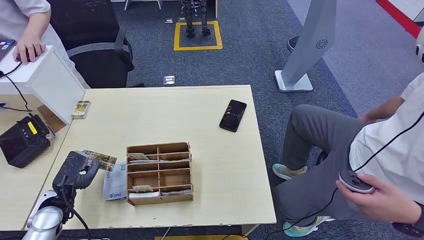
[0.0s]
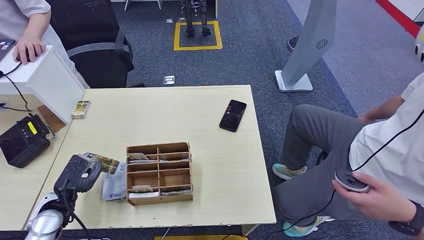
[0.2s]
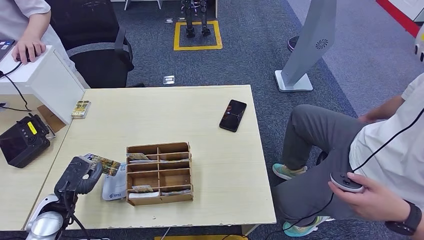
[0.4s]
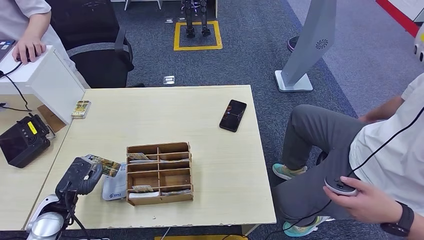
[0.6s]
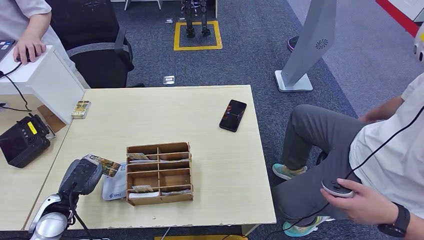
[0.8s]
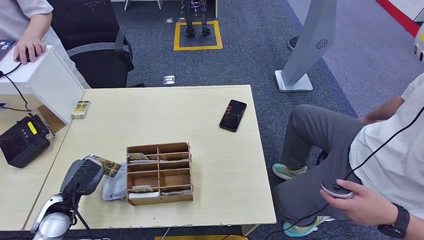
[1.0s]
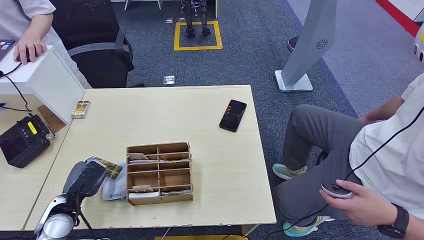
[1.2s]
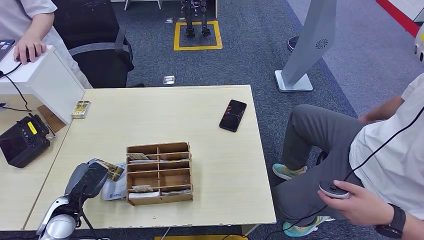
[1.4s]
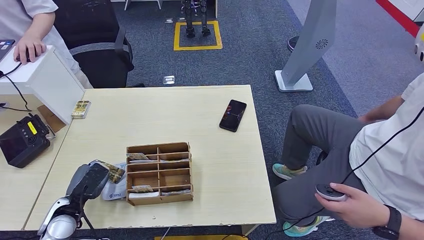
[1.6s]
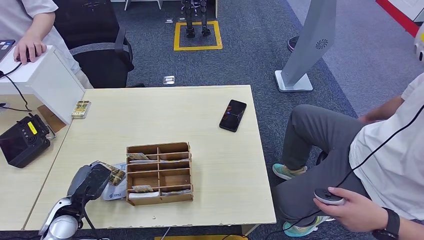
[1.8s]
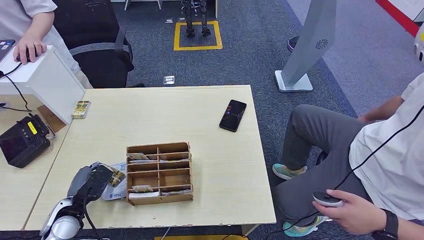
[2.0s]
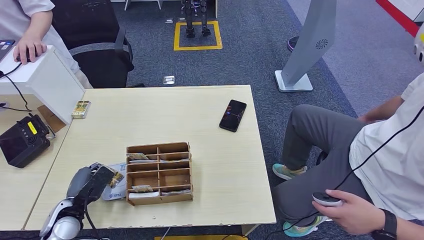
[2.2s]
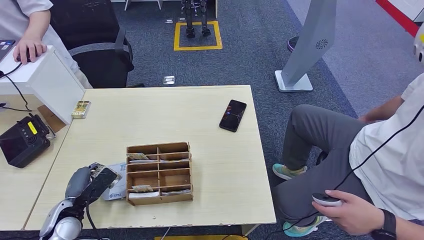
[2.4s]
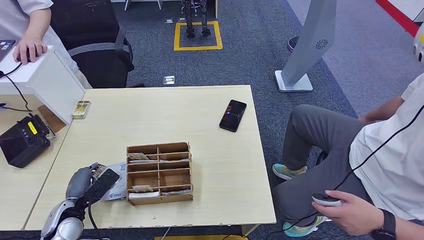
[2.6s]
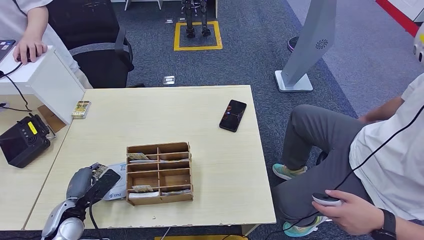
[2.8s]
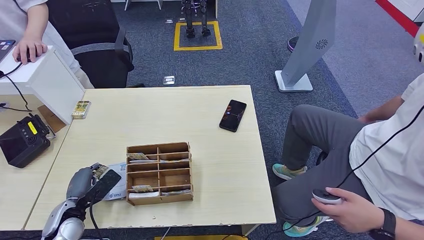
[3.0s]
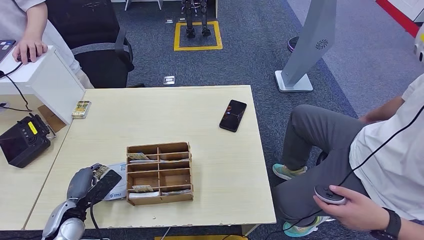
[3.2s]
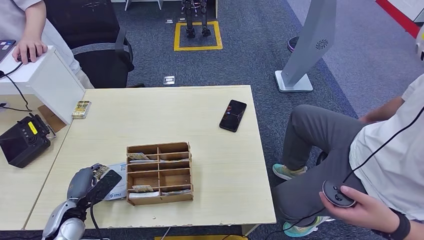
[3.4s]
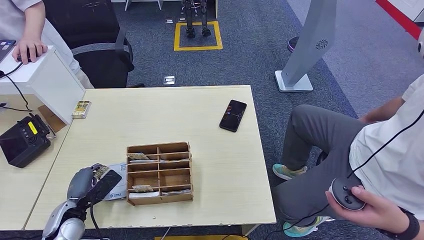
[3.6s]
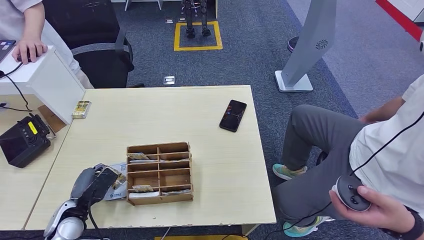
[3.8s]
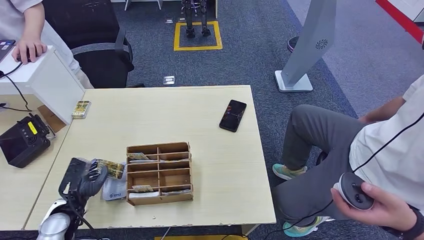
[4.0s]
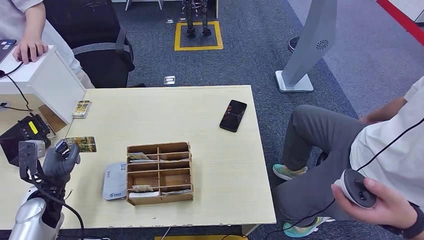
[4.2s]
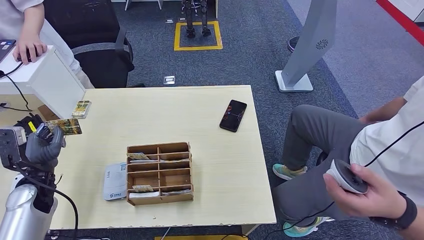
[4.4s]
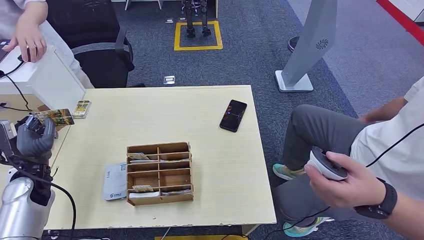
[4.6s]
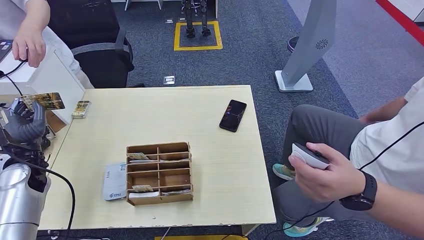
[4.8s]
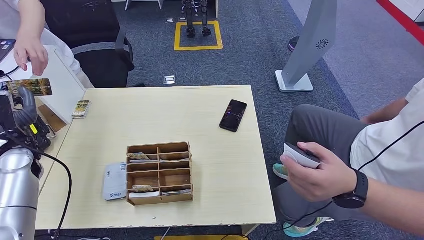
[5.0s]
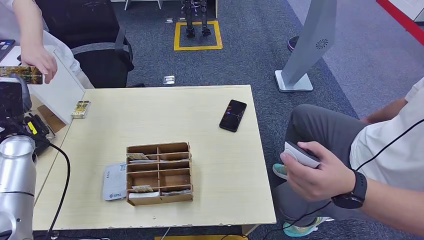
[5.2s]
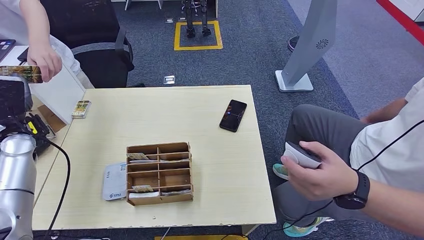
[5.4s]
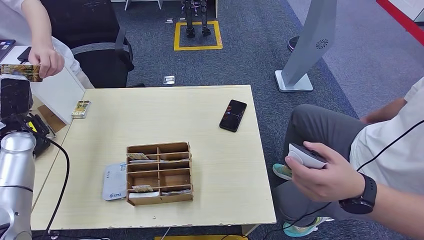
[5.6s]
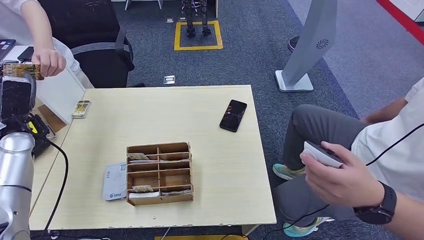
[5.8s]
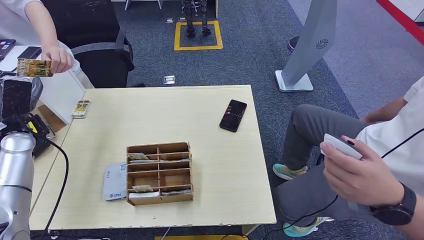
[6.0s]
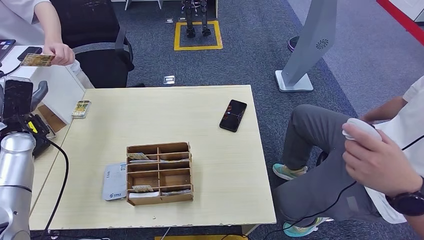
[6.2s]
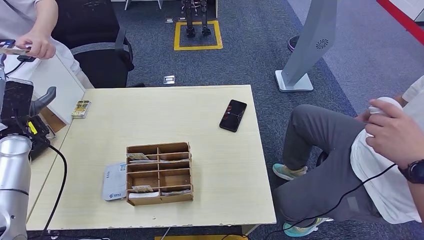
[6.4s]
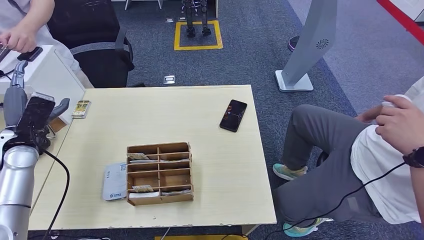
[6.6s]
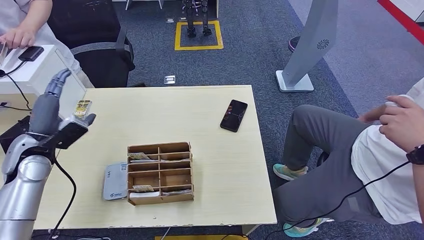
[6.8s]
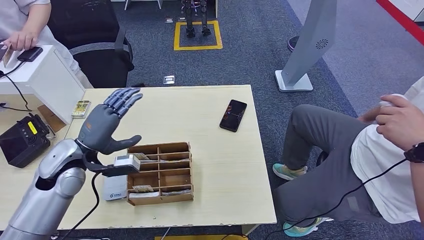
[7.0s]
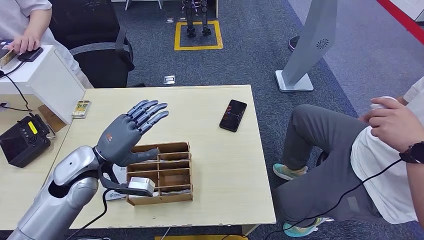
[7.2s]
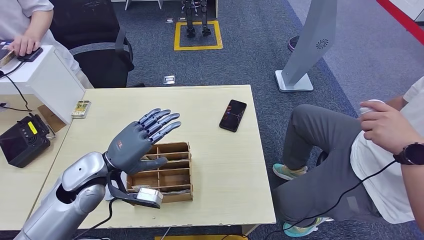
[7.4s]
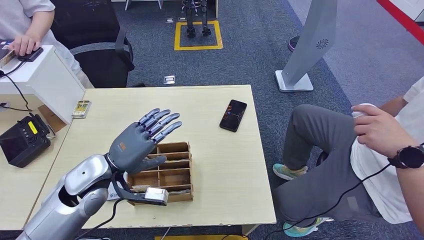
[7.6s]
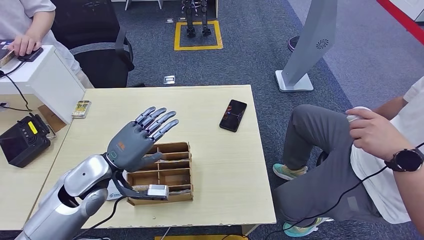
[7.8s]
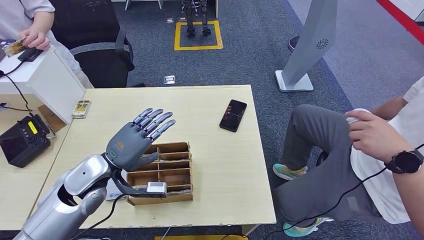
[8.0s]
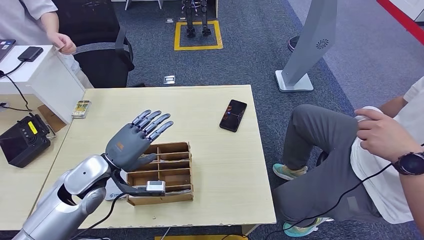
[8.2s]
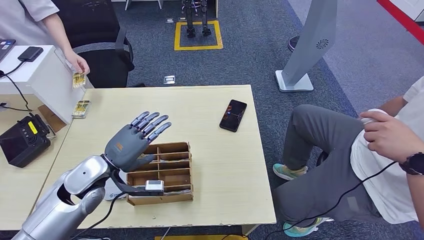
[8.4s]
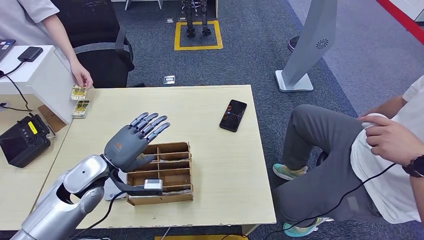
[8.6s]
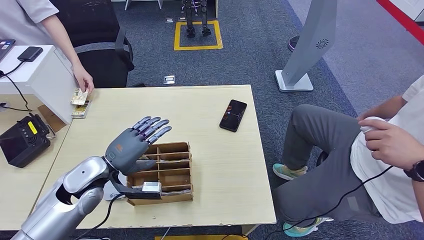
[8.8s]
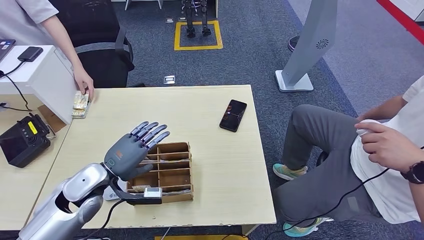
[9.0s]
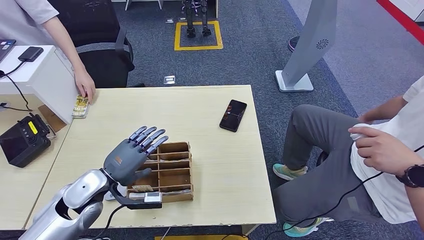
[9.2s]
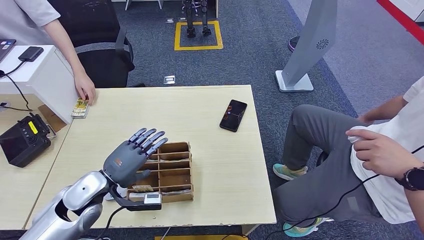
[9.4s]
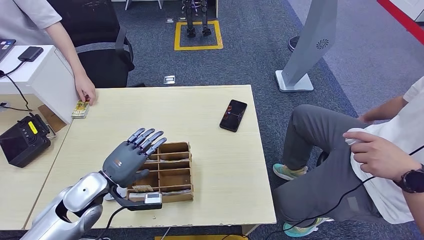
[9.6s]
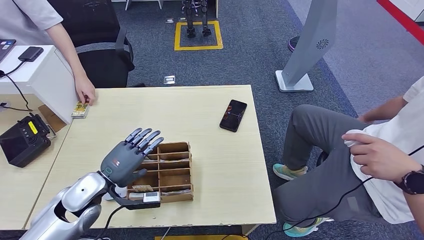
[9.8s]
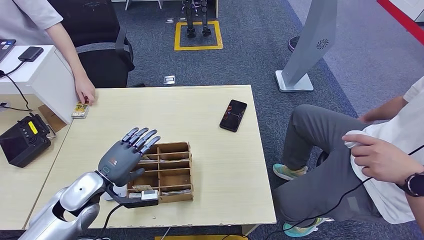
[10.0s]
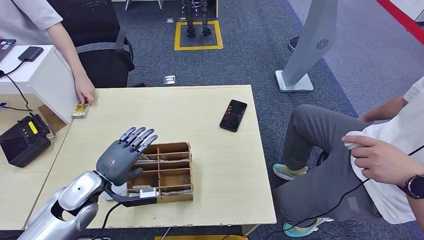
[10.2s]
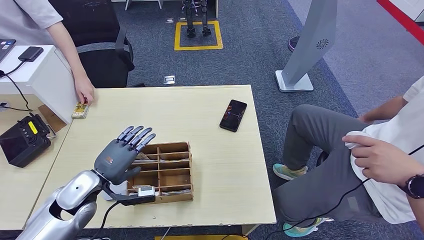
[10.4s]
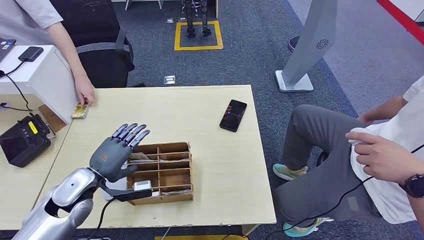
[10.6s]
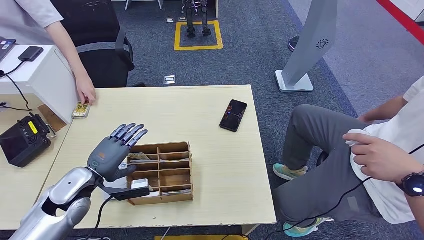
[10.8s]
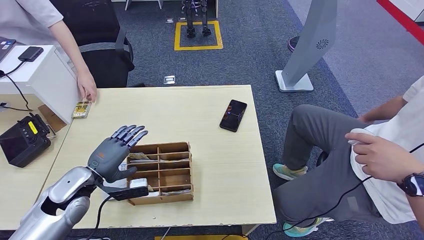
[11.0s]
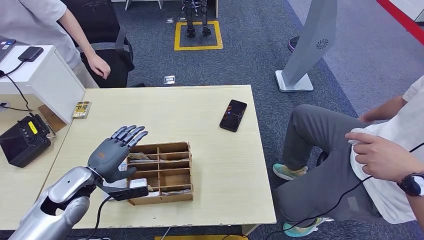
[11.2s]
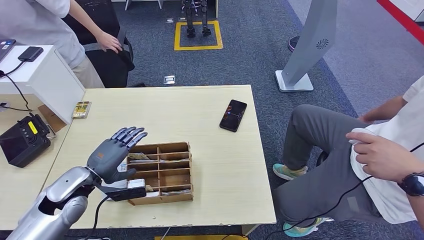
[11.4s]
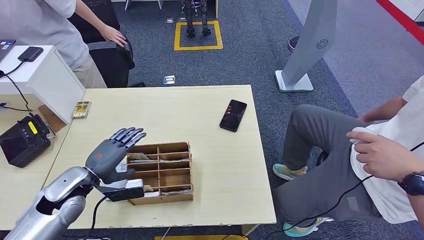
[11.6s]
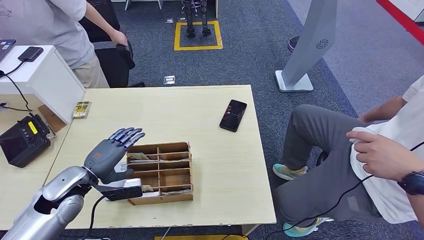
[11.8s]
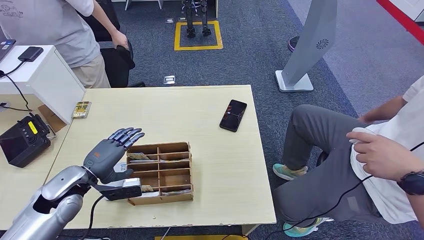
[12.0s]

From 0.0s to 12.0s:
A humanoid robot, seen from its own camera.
Step, from 0.0s to 2.0s: Place the ID card on the card reader.
Step, from 2.6s to 7.2s: Hand the ID card to the person.
From 0.0s to 1.6s: The hands make only small movements.
From 1.6s to 3.0s: There are only small adjustments of the hands.
From 3.0s to 4.4s: The left hand goes some 10 cm upward, forward and to the left.
From 4.4s to 6.0s: The left hand goes about 15 cm upward and forward.
From 7.6s to 9.0s: The left hand shifts by some 5 cm.
From 9.0s to 12.0s: The hands make only small movements.

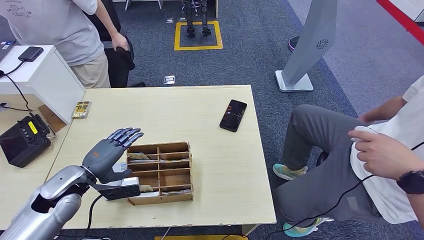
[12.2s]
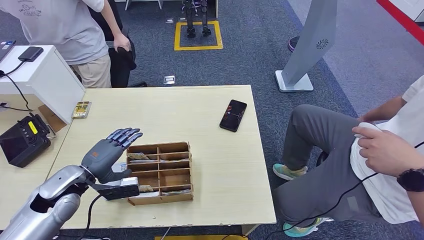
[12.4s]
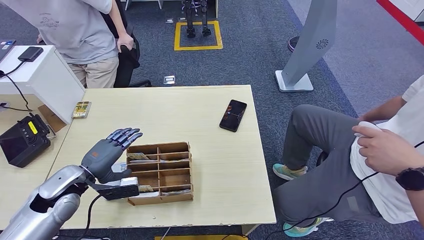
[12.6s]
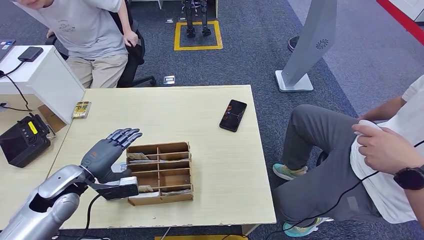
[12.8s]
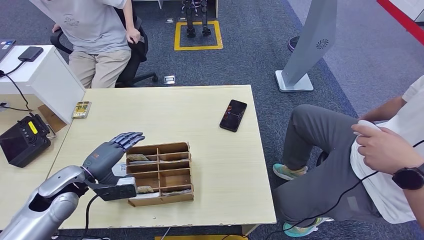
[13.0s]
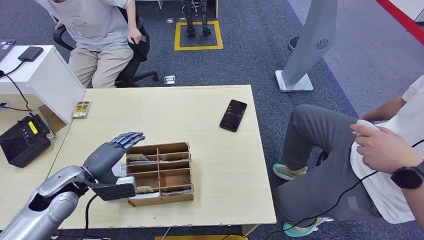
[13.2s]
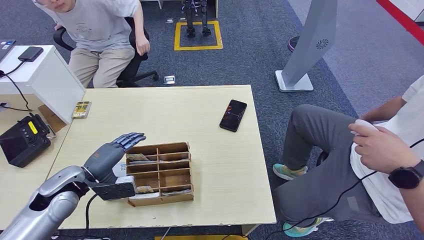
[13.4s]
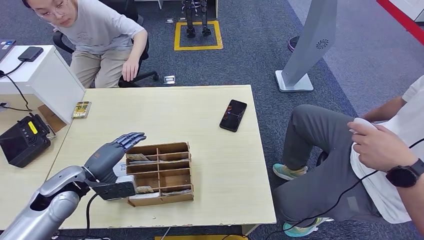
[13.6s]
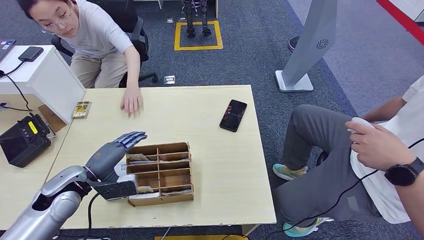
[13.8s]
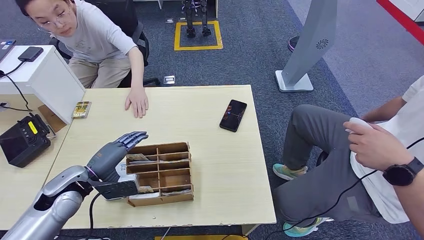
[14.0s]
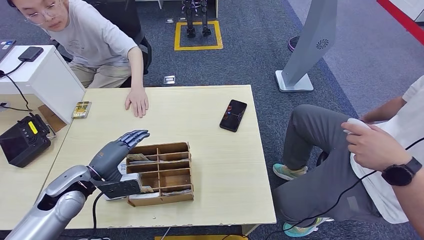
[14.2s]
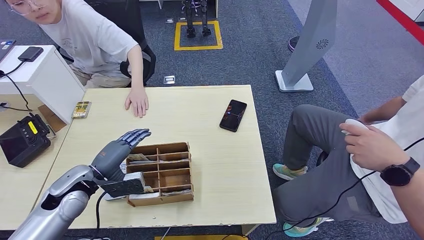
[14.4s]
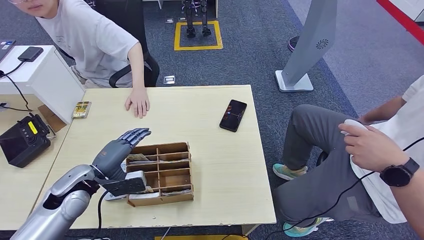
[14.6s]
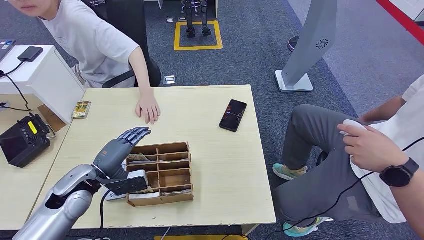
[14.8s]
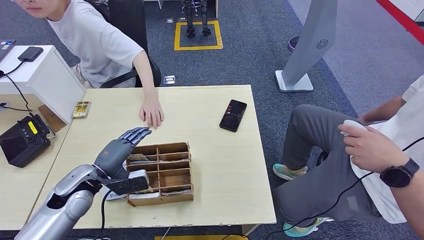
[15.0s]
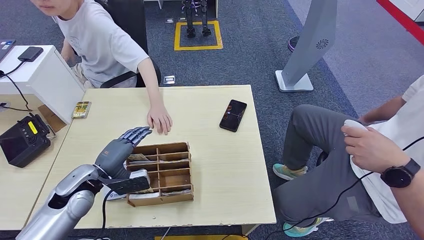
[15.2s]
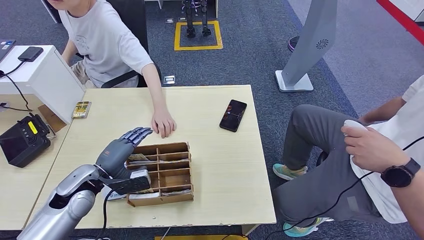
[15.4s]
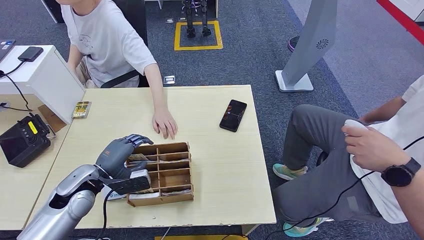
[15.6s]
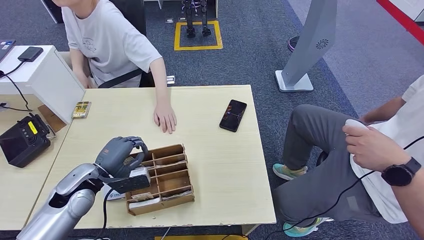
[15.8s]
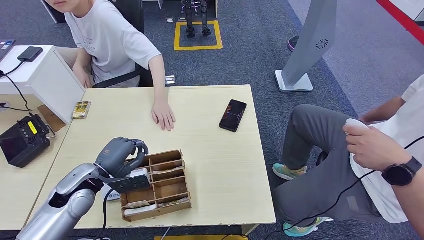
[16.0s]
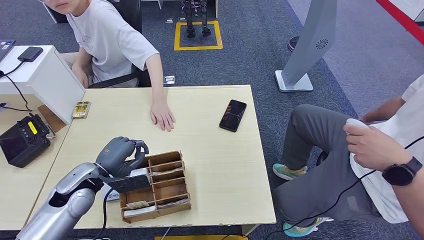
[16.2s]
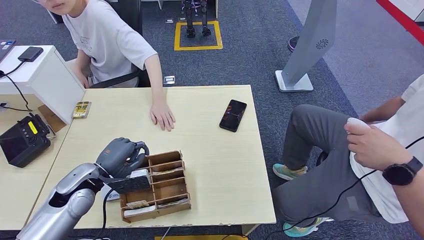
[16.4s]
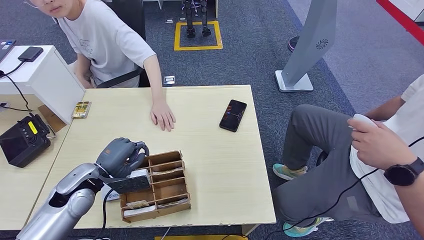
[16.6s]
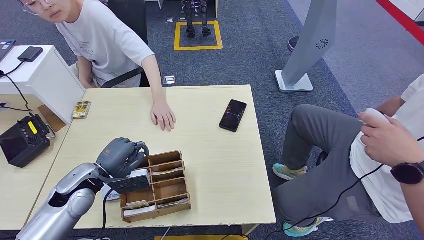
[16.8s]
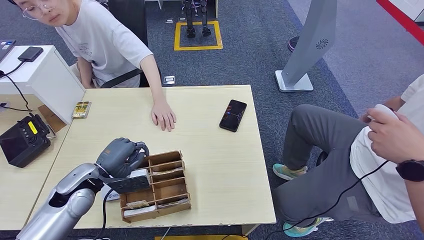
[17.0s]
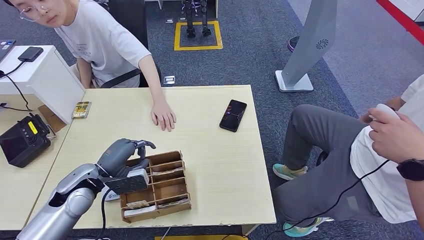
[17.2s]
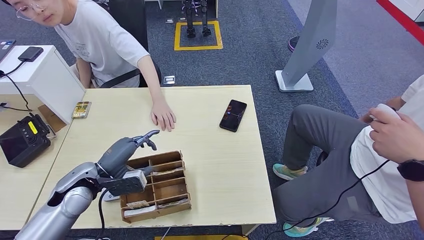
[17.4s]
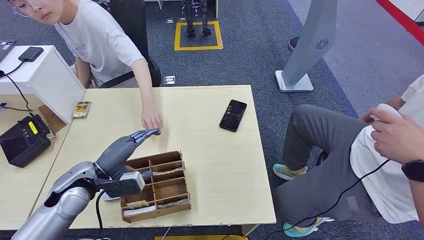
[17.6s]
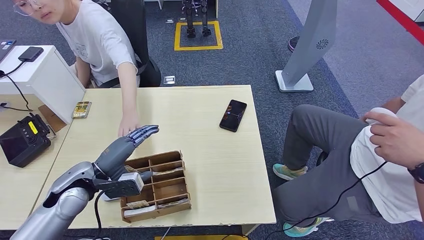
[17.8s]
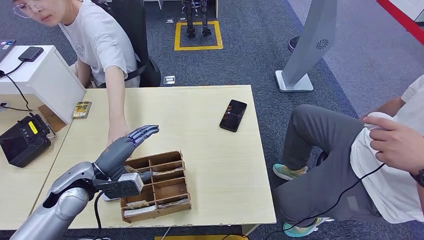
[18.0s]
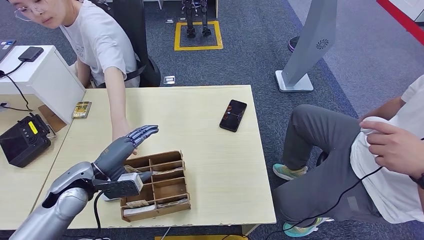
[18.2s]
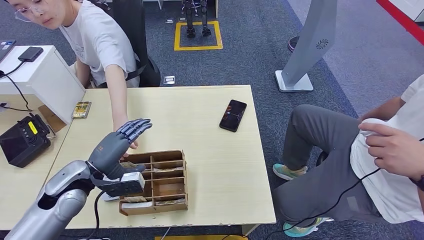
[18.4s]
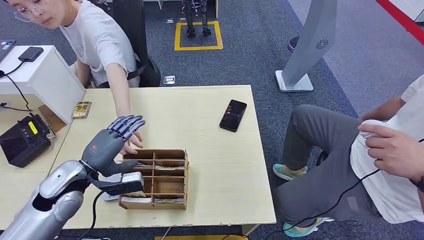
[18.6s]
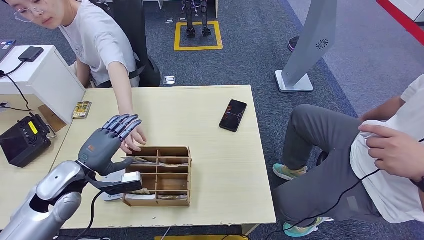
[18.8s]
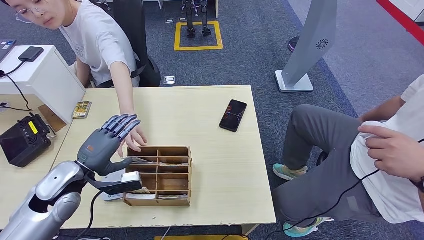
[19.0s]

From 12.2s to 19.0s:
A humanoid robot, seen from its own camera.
From 12.2s to 15.0s: The hands make only small movements.
From 15.0s to 16.2s: Both hands stay about where they are.
From 16.2s to 17.6s: The hands make only small movements.
